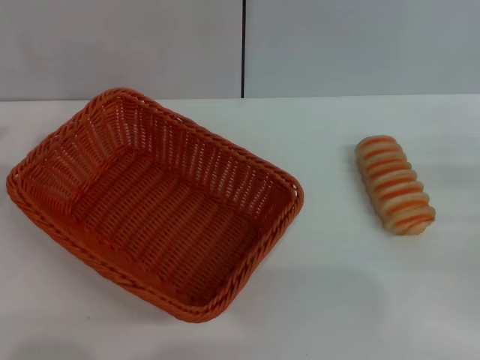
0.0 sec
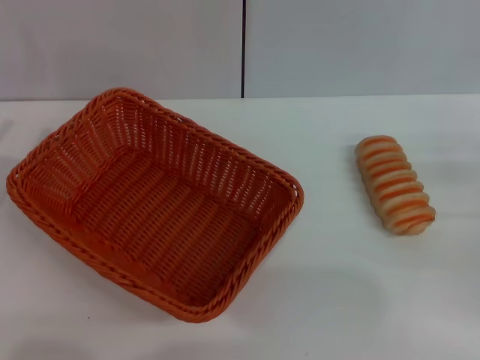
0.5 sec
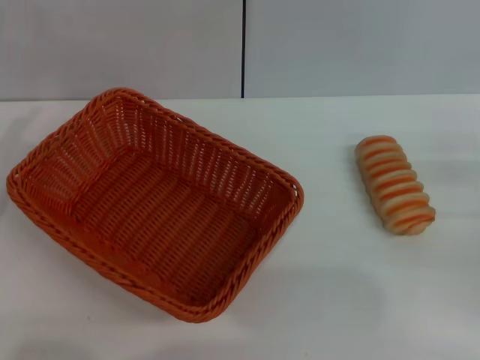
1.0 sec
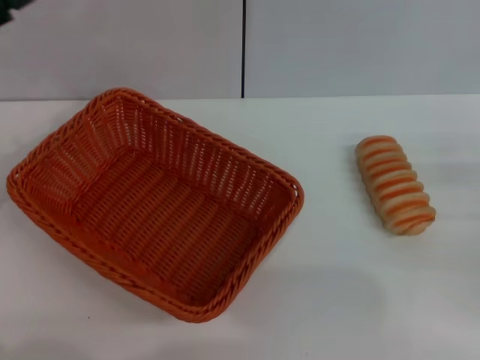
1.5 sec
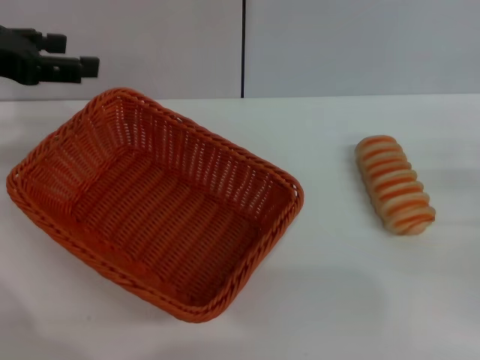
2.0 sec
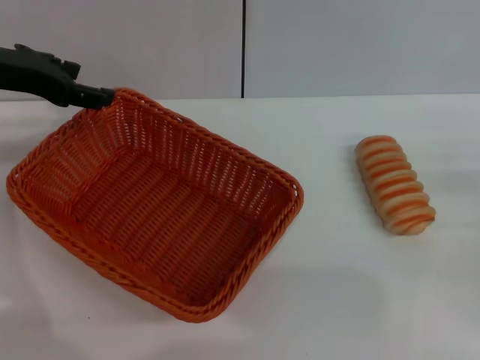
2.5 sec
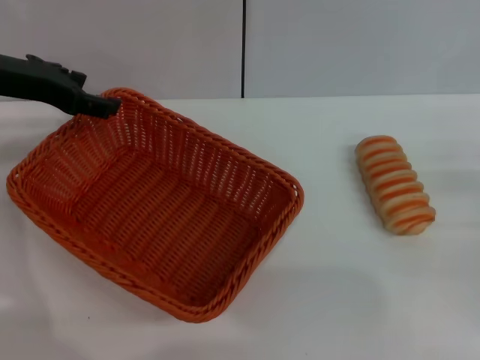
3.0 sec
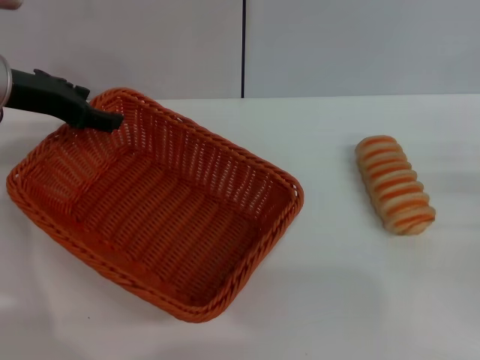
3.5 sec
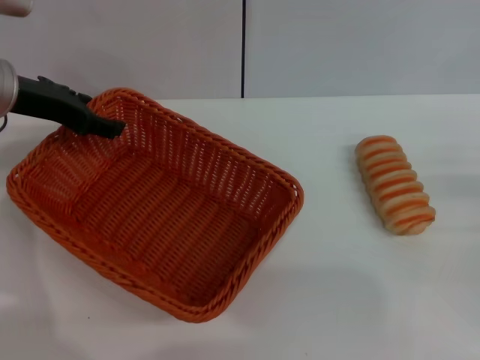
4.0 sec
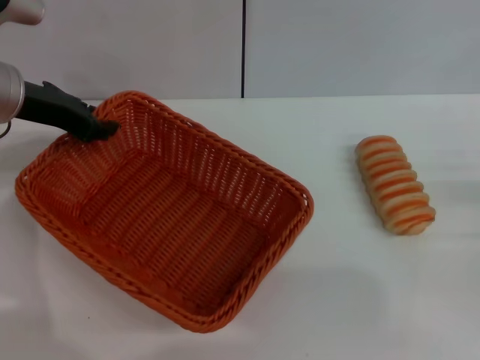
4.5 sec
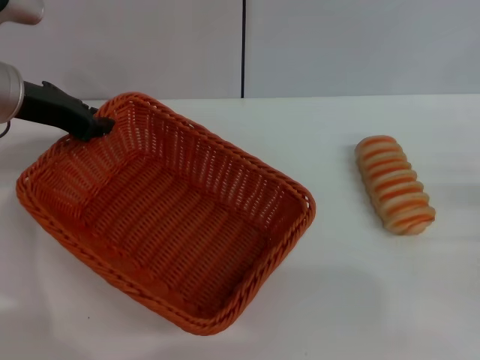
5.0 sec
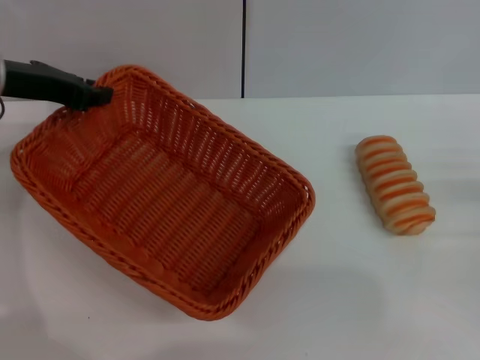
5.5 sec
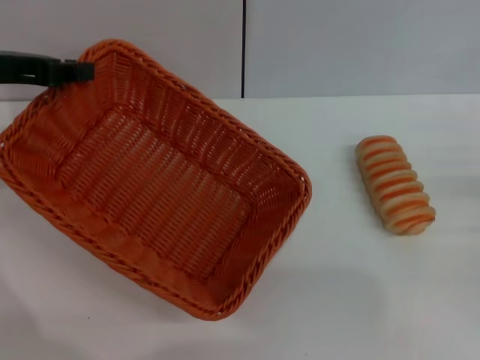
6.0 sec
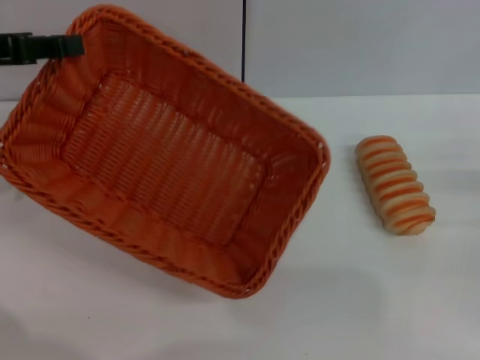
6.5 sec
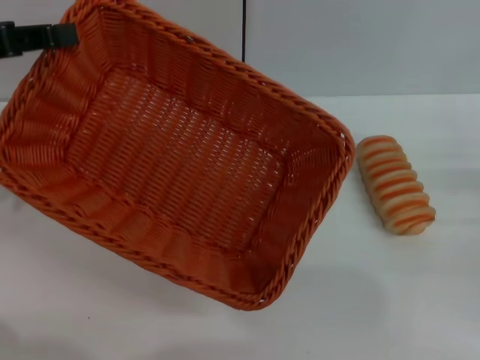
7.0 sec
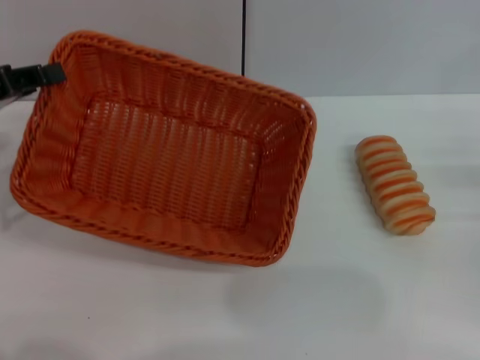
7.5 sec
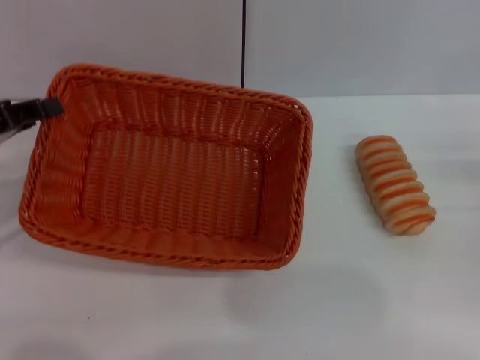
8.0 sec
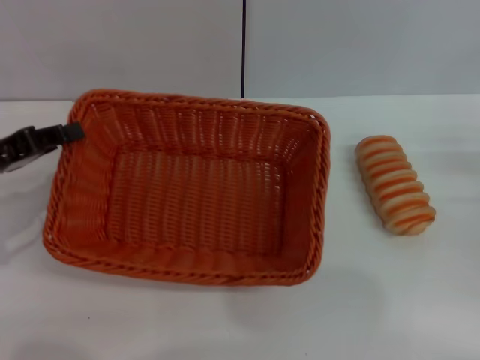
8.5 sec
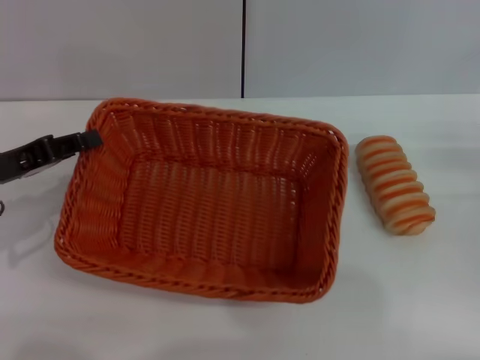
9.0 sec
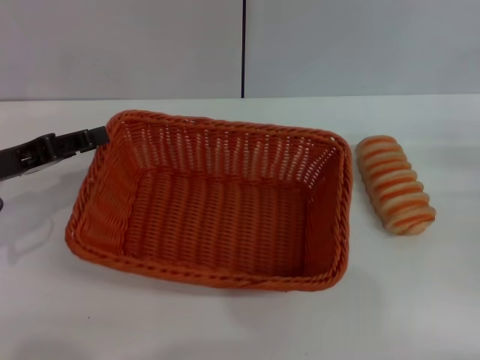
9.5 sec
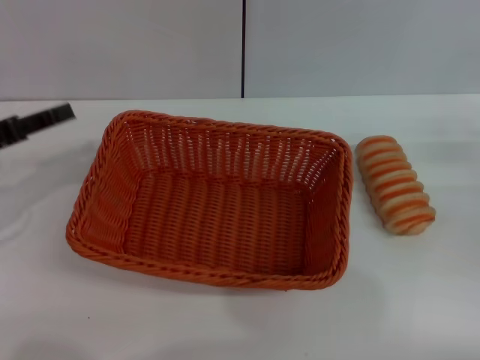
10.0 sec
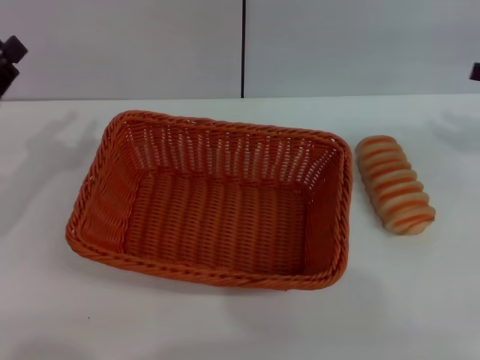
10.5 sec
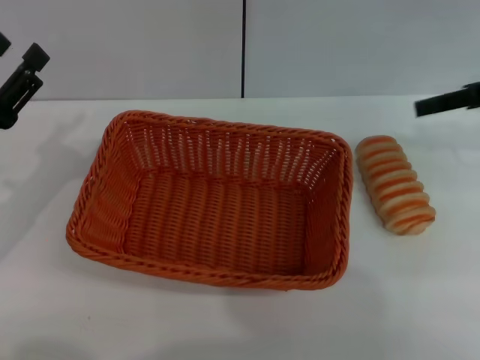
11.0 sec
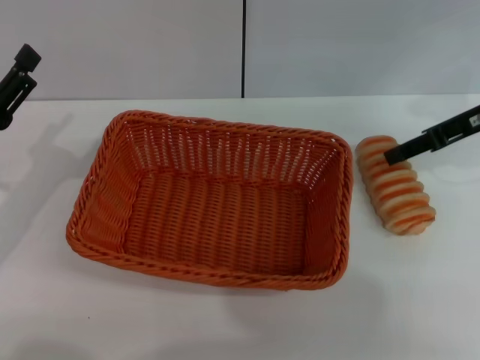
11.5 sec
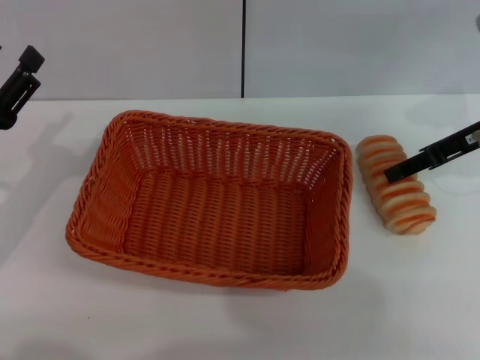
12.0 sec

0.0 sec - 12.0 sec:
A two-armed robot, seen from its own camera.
Step, 0.0 sec - 6.0 sec: Pick up the light basket with the left gripper.
Step, 6.5 sec - 9.5 sec: Place the light basket in the center of view with the left gripper.
0.0 sec - 2.0 sec: The left gripper is displaced upward and forward by about 20 cm.
2.0 sec - 4.0 sec: The left gripper shifts some 5 cm downward.
4.0 sec - 6.0 sec: The left gripper ends up approximately 5 cm from where it was, and closes.
6.0 sec - 8.0 sec: The left gripper is displaced downward and backward by roughly 10 cm.
8.0 sec - 10.0 sec: The left gripper opens its fingers.
10.0 sec - 12.0 sec: The right gripper is displaced to the left, forward and upward by about 15 cm. The left gripper moves roughly 5 cm, and opens.

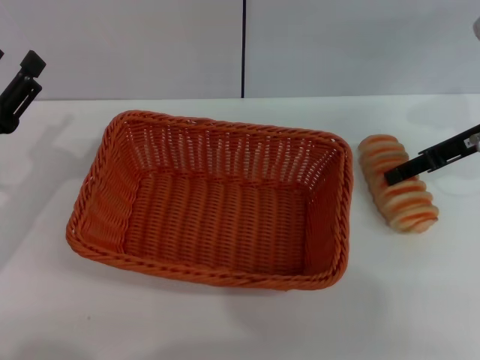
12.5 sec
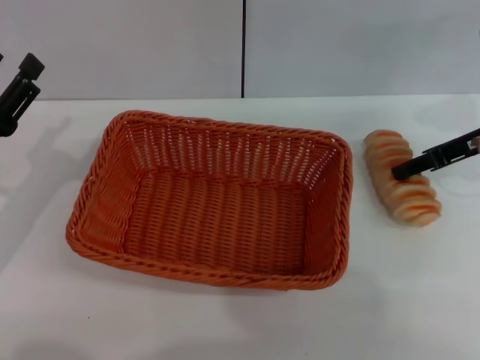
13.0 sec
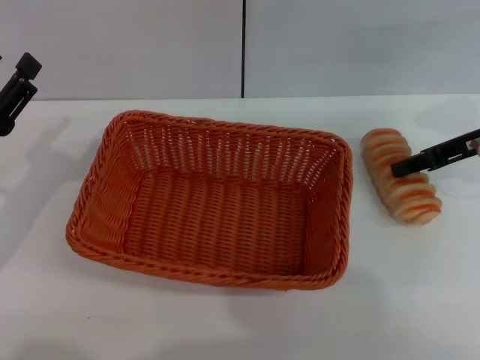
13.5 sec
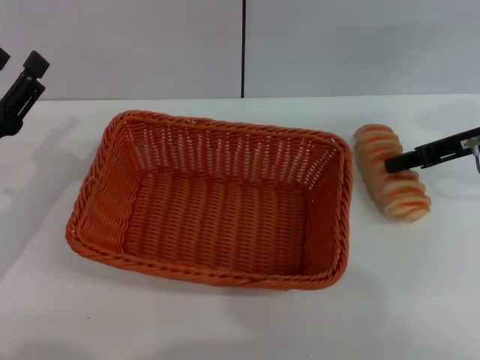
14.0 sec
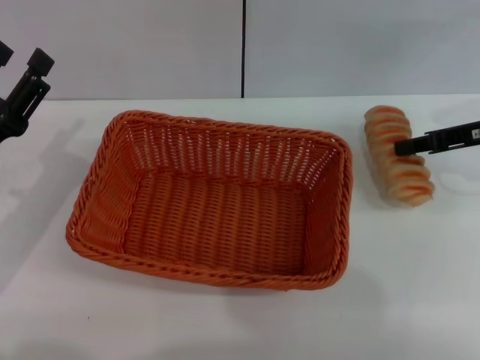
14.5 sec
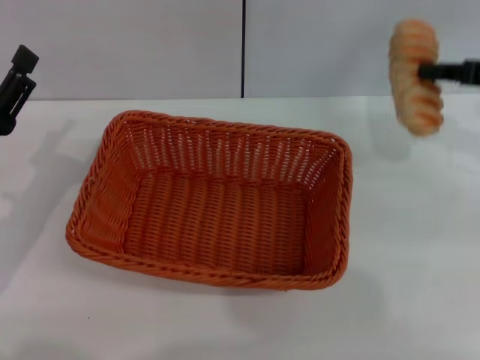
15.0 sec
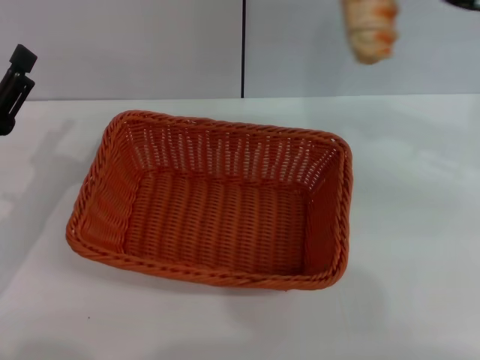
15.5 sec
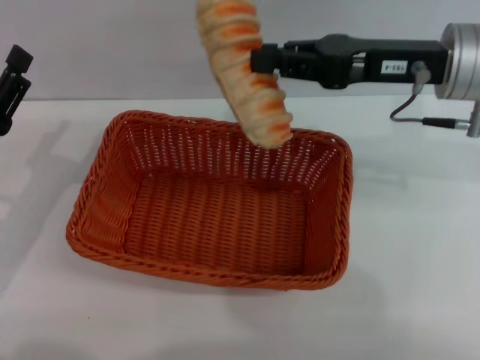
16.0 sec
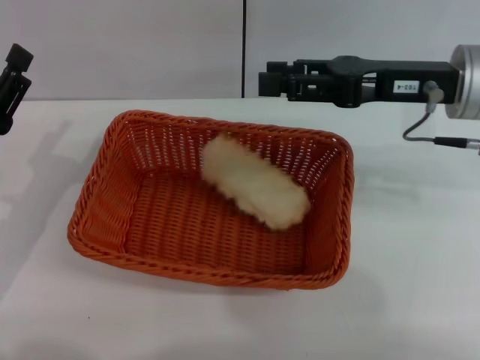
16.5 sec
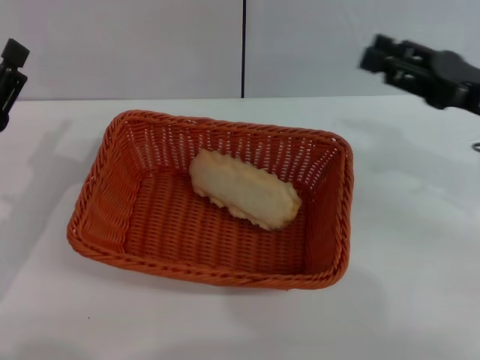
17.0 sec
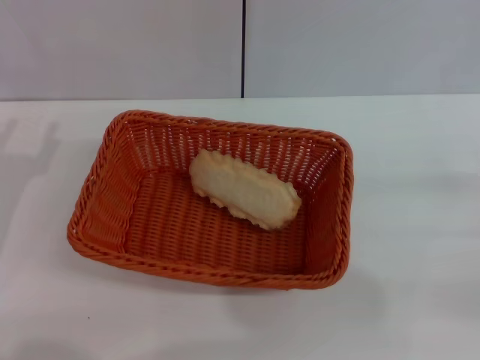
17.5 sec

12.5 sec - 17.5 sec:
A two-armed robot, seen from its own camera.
Step, 12.5 sec - 14.5 sec: Pick up the long bread with the right gripper.
Step, 15.0 sec - 16.0 sec: Place the long bread into the light basket with the right gripper.
12.5 sec - 15.0 sec: The right gripper shifts by roughly 5 cm, and closes up.
15.0 sec - 17.5 sec: The right gripper is displaced backward and downward by roughly 15 cm, reaches some 15 cm to the left, then returns, and opens up.
